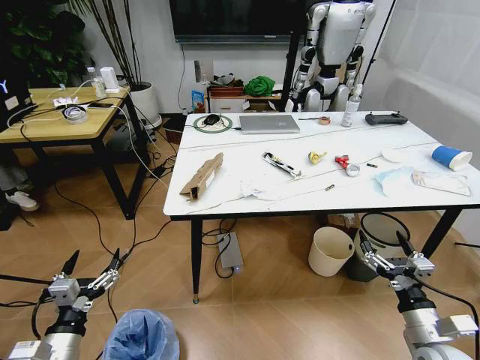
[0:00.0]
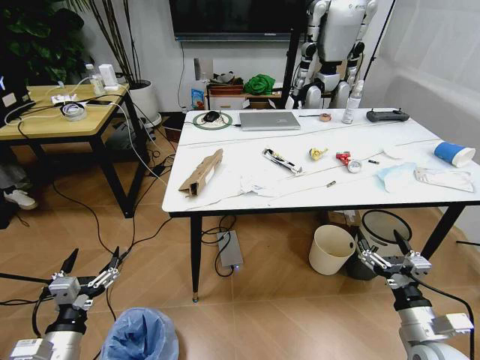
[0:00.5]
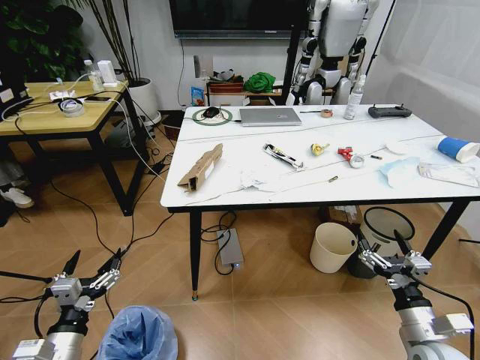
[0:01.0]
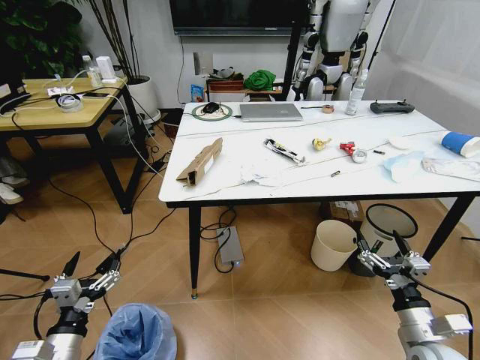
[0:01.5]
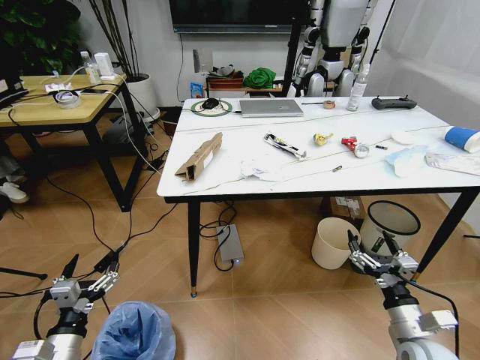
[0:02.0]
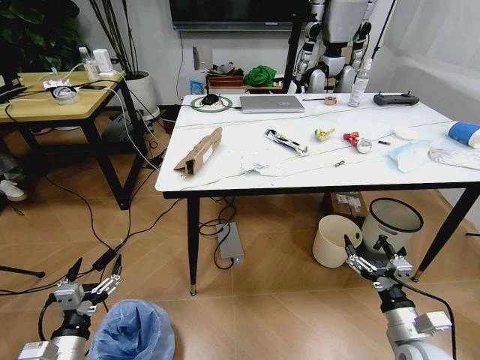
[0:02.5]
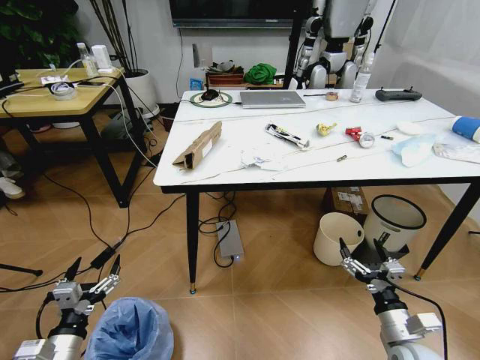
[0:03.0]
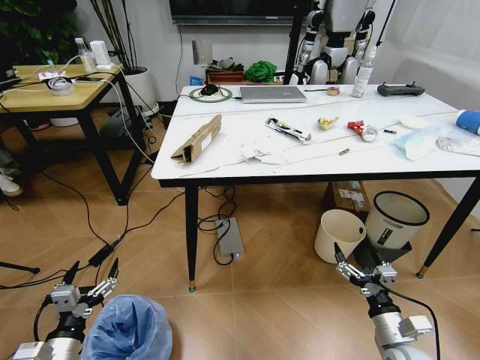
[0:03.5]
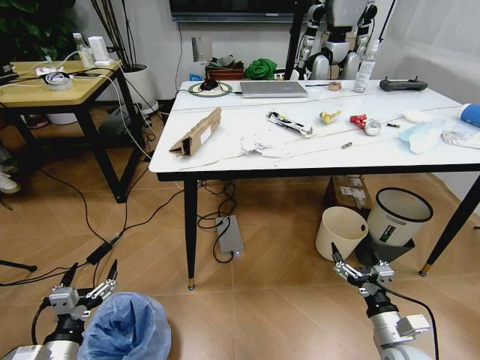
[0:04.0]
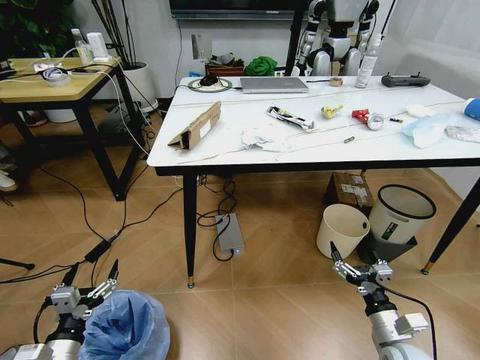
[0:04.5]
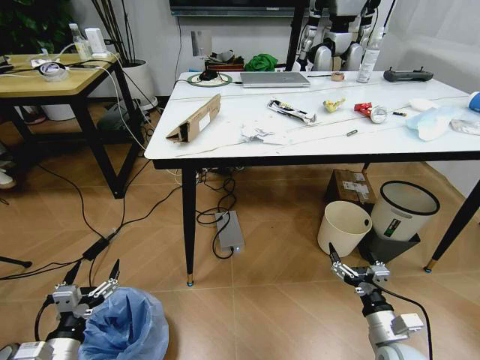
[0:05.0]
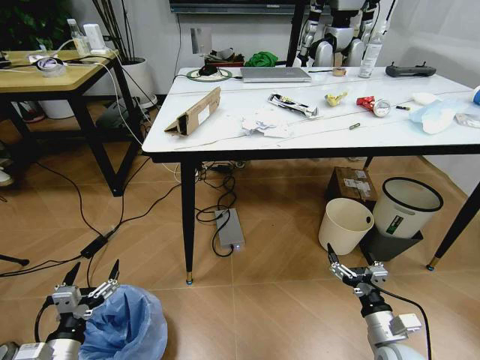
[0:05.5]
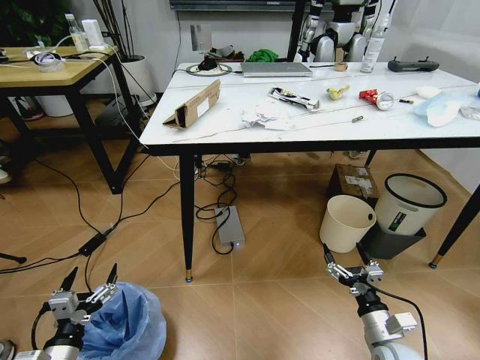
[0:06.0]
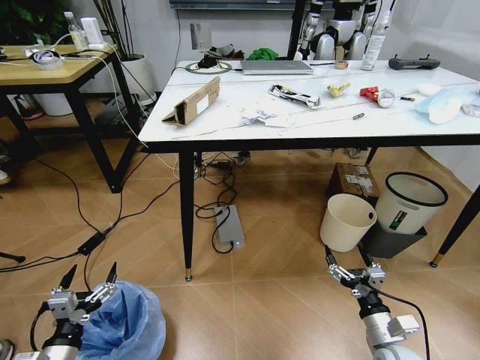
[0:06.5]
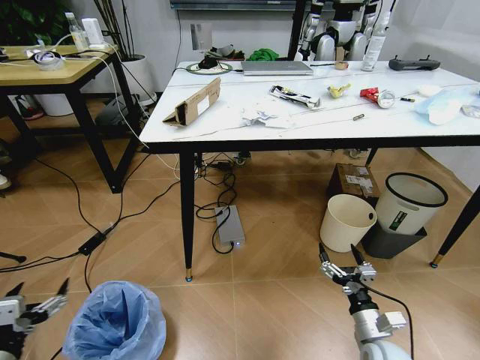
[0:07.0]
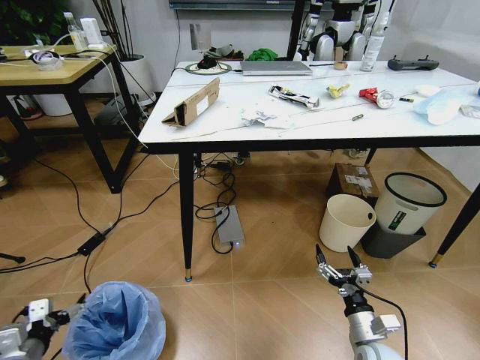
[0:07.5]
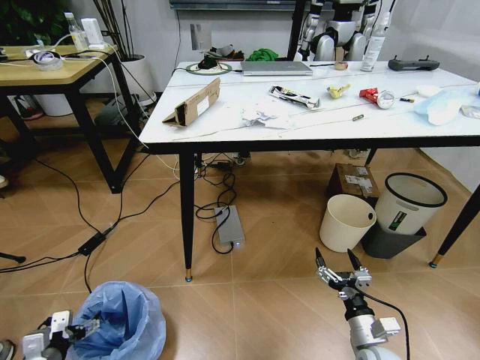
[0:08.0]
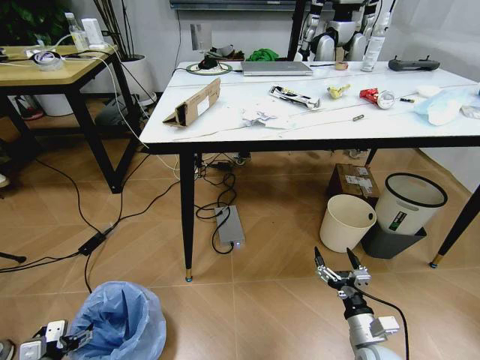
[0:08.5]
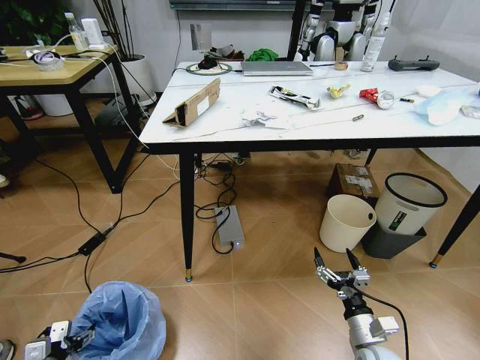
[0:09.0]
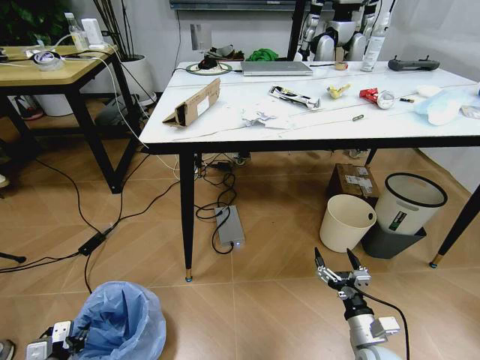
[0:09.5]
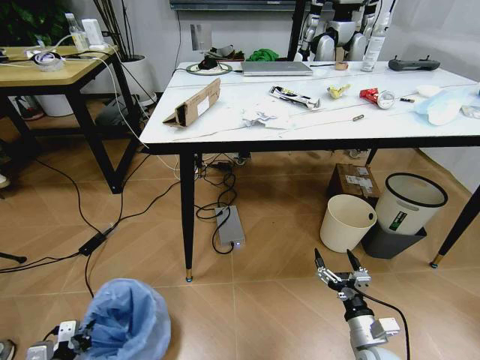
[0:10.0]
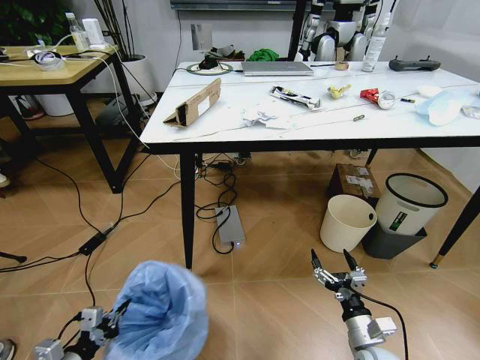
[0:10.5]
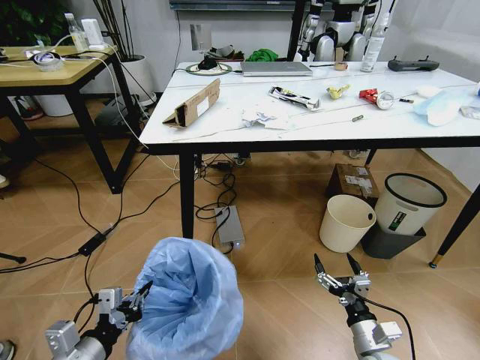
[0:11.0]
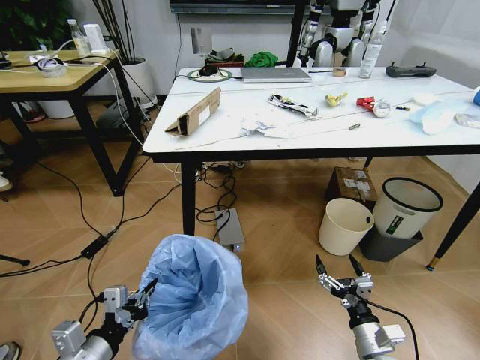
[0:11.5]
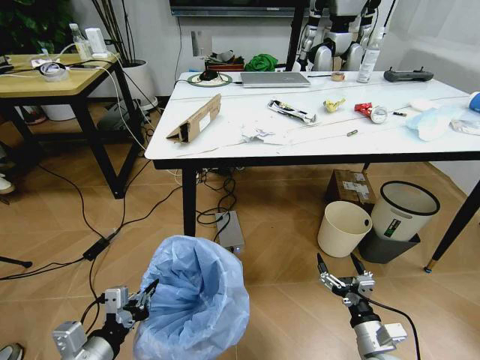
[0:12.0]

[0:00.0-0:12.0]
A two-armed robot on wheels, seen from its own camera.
Task of the whole recording: Pick up the trash bin and place the trash from the table into it.
0:06.0 to 0:08.0: The left gripper heads to the left, covering roughly 10 cm.
0:08.0 to 0:10.0: The left gripper ends up approximately 5 cm from where it was, and closes.
0:10.0 to 0:12.0: The left gripper heads upward and to the right, covering roughly 25 cm.

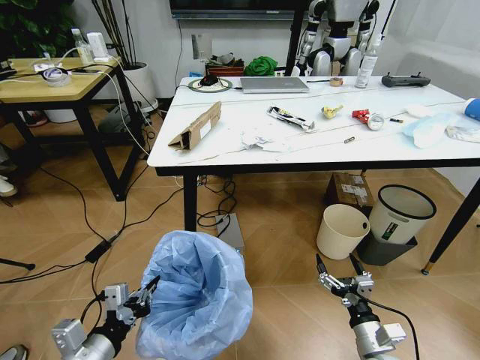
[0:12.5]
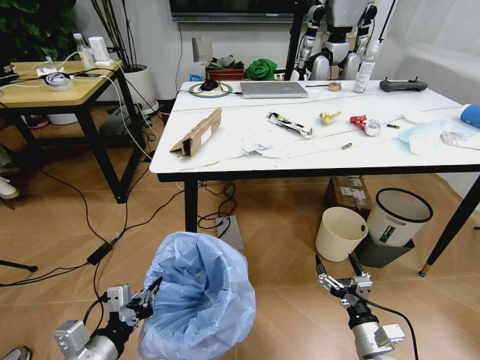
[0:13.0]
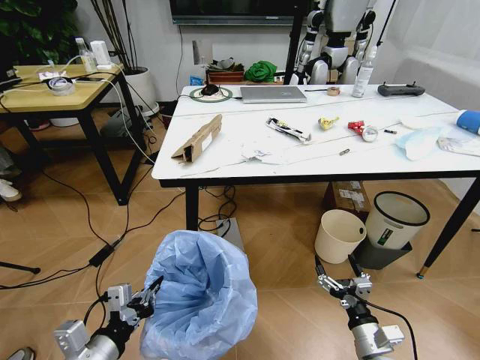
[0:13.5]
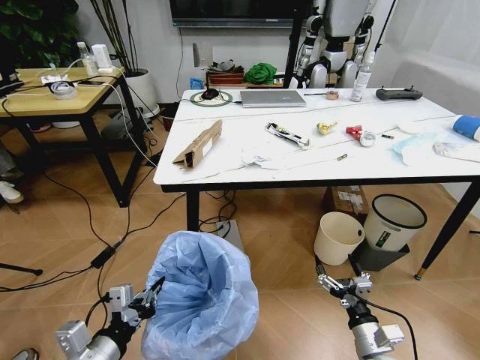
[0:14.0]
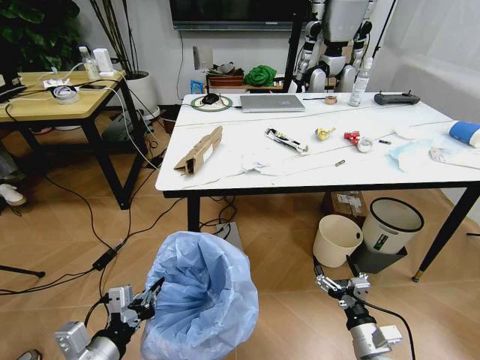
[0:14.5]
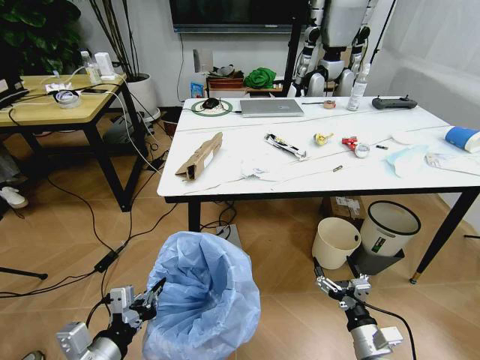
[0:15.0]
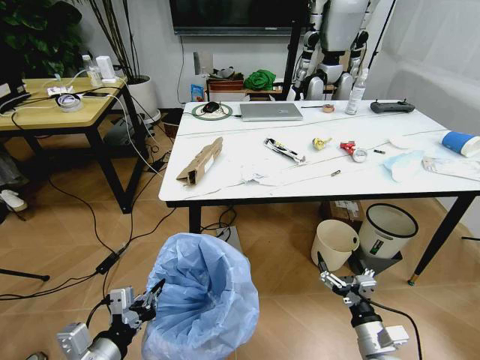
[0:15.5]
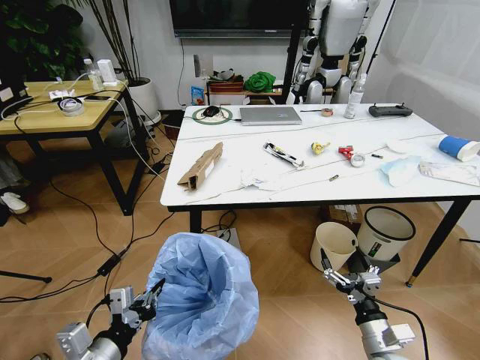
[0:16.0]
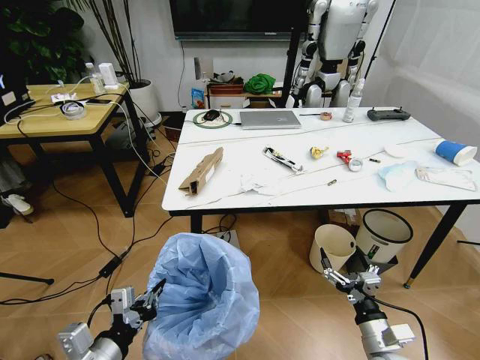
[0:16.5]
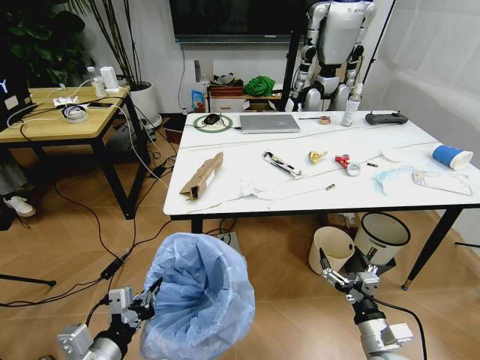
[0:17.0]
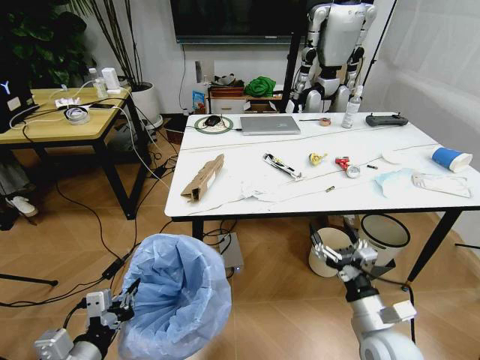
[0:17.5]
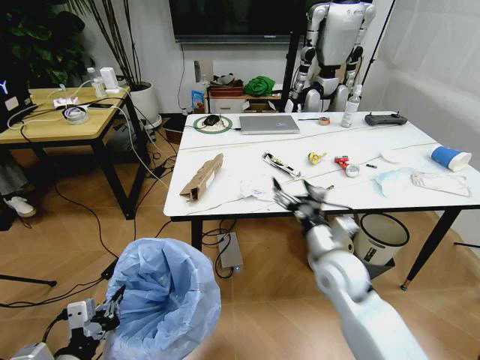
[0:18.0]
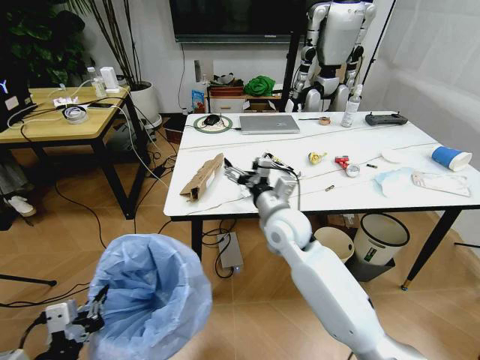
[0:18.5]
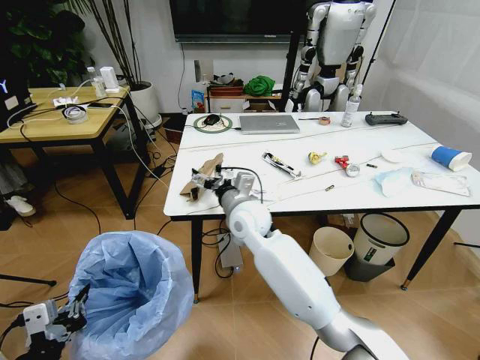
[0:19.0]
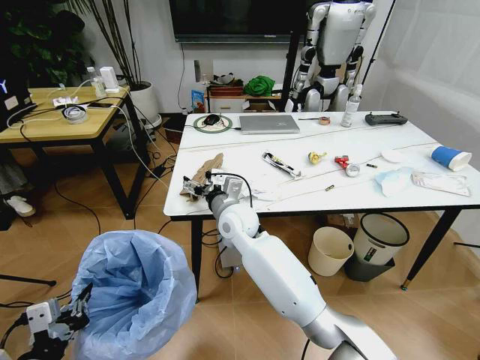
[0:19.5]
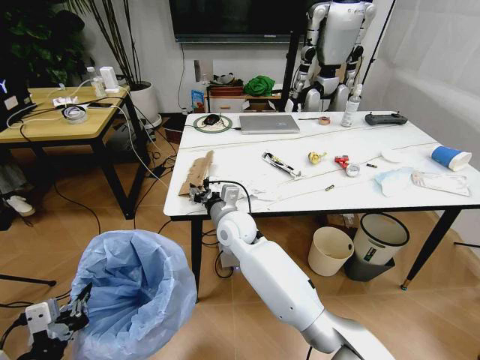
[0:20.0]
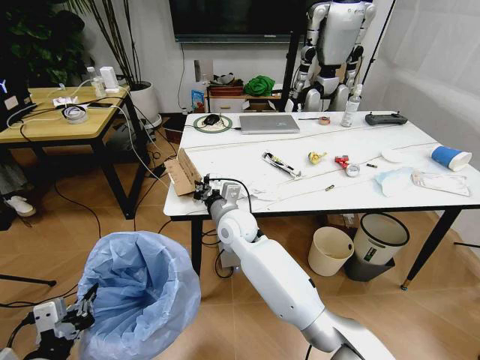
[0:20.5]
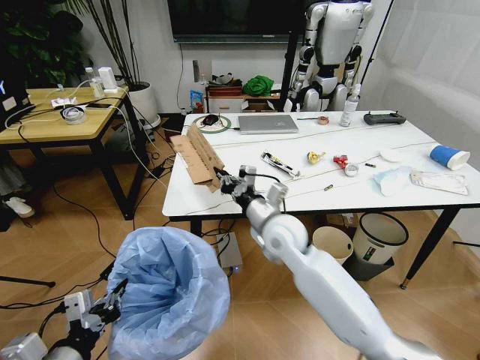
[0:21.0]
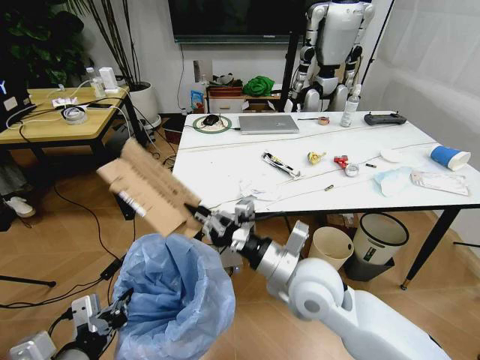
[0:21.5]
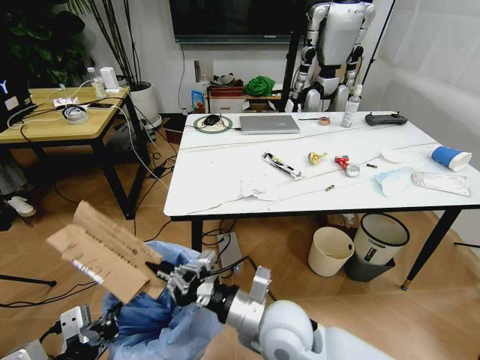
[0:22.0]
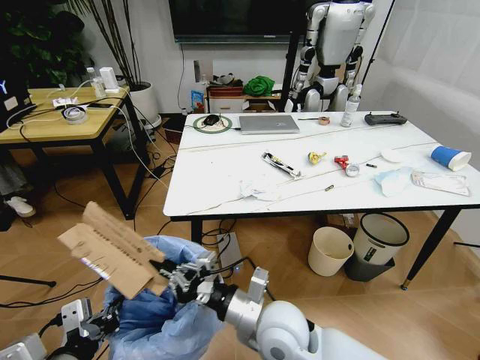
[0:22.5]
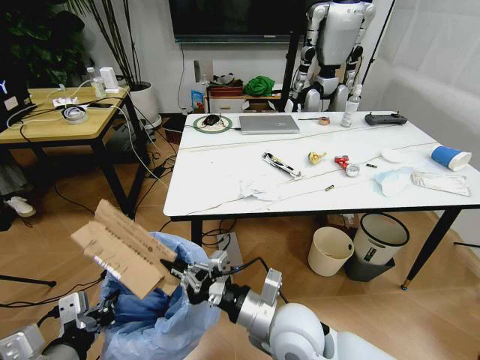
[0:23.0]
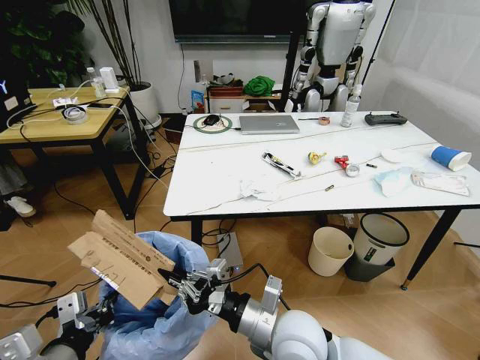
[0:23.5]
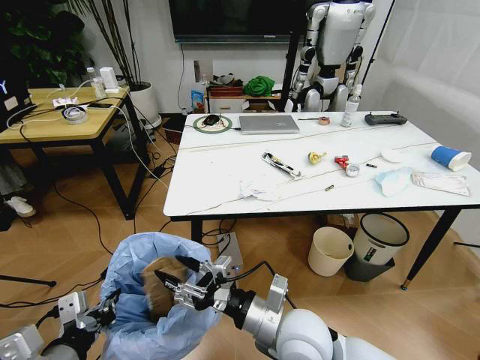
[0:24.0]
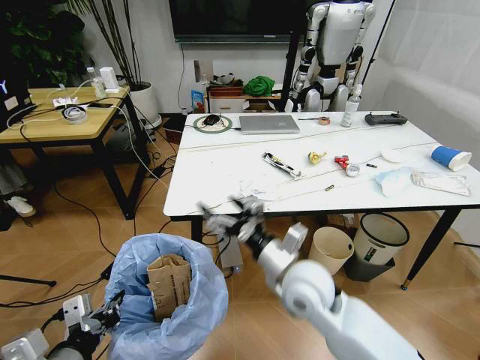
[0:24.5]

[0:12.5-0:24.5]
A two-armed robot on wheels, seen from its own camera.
Task of the whole recording: Pick up the trash bin and place the trash from the table into it.
0:16.5 to 0:18.5: The left gripper changes place by approximately 5 cm; the right gripper is displaced forward, to the left and upward by about 35 cm.
0:18.5 to 0:20.5: The right gripper travels to the left by roughly 10 cm, and closes.
0:20.5 to 0:22.5: The left gripper changes place by approximately 5 cm, while the right gripper is displaced backward by approximately 20 cm.
0:22.5 to 0:24.5: The right gripper heads forward and to the right, covering about 10 cm, and opens its fingers.

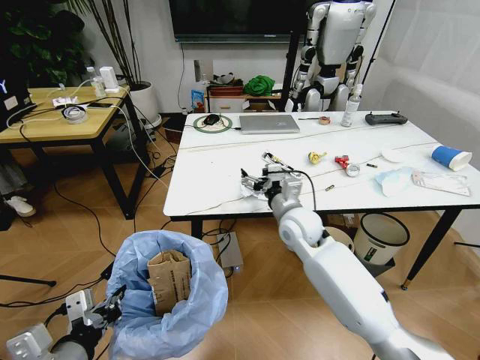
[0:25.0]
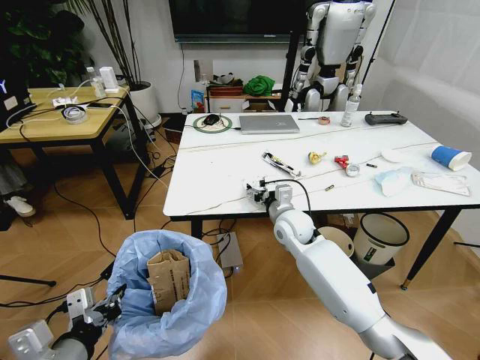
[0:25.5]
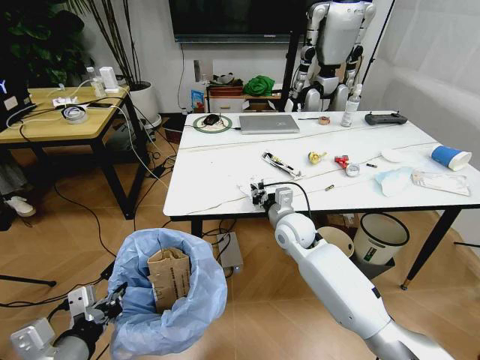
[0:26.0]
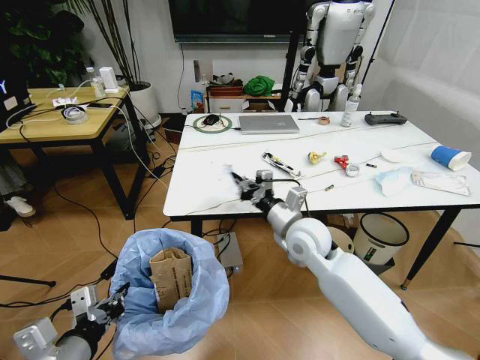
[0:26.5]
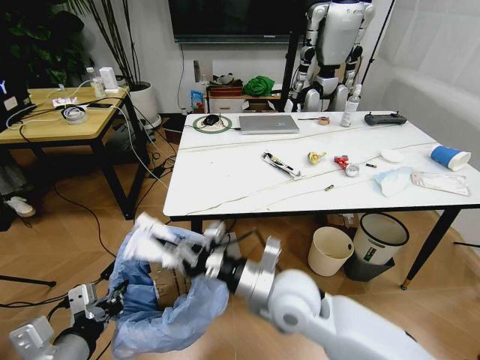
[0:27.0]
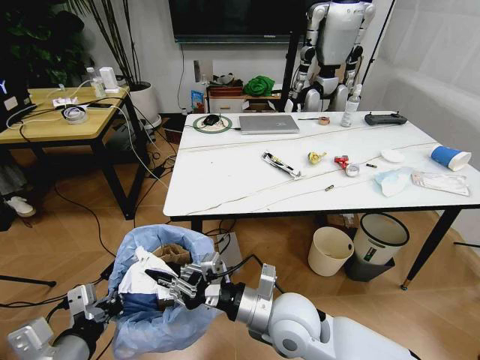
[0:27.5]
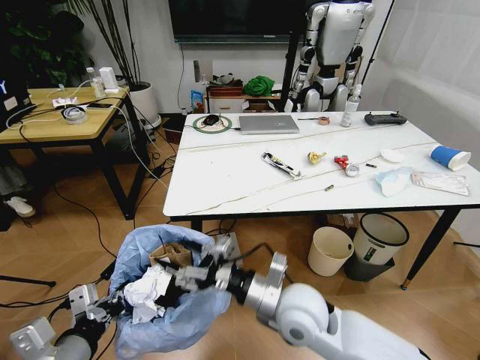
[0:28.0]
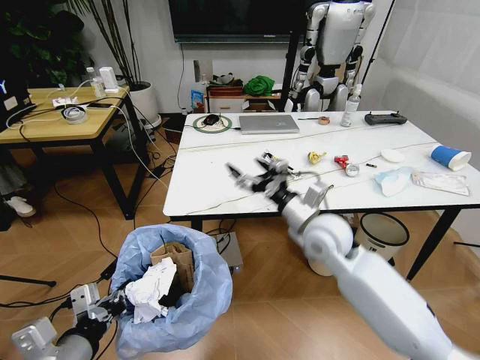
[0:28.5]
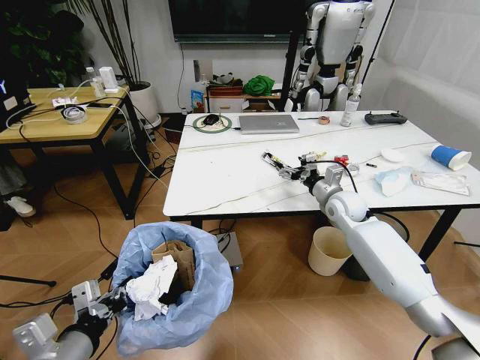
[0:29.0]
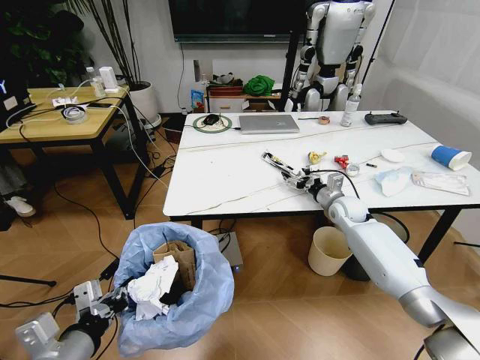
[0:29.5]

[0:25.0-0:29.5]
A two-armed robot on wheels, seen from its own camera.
Task of the whole recording: Pick up the trash bin and place the trash from the table into it.
0:25.0 to 0:27.0: The right gripper goes some 15 cm backward, and closes its fingers.
0:27.0 to 0:29.5: The right gripper is displaced forward and to the right by roughly 35 cm, and opens.
